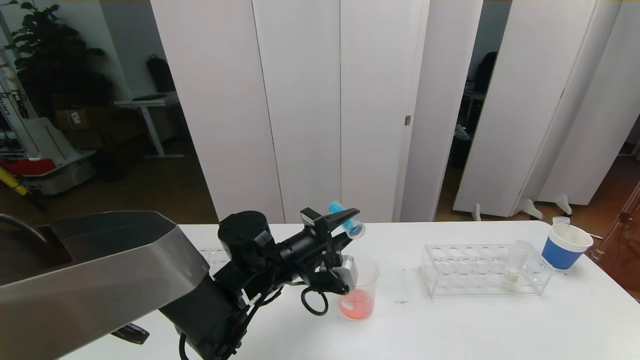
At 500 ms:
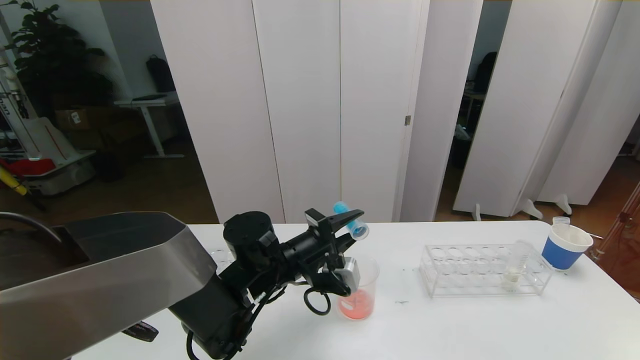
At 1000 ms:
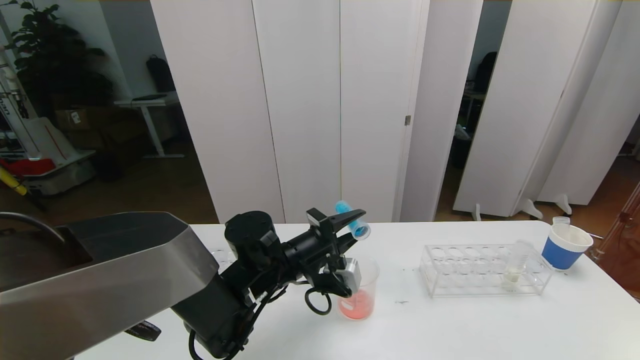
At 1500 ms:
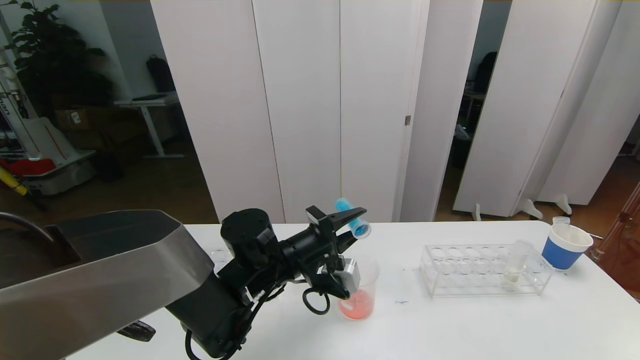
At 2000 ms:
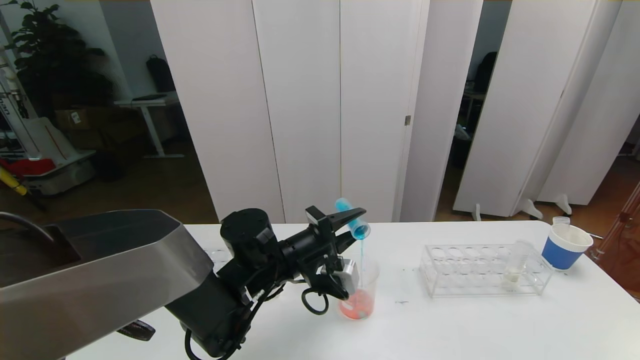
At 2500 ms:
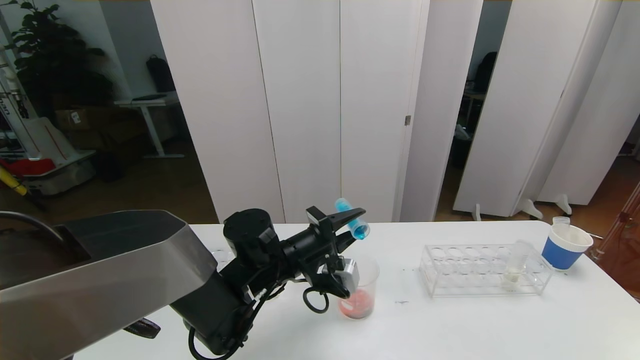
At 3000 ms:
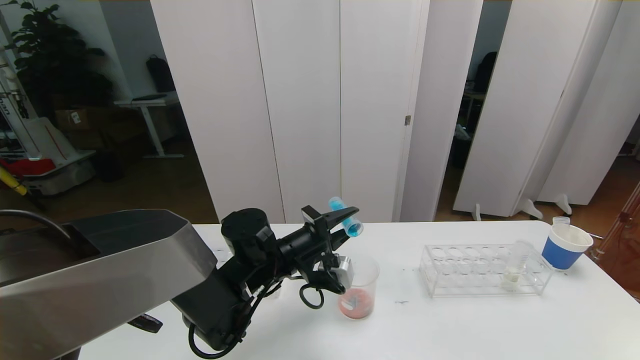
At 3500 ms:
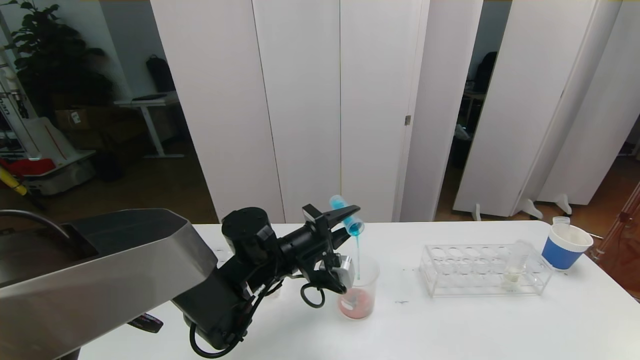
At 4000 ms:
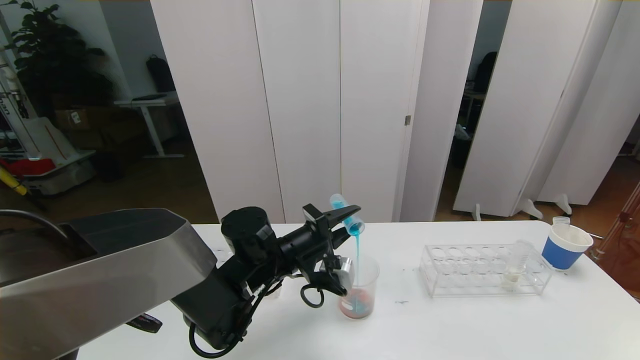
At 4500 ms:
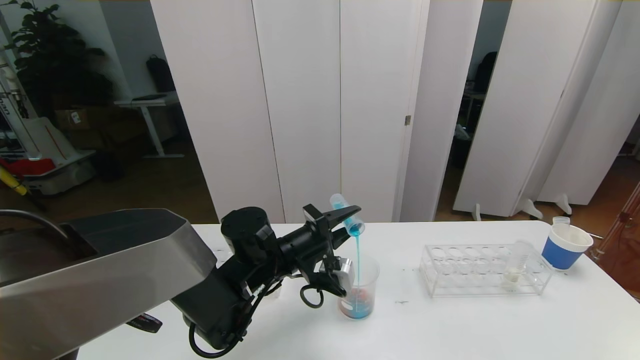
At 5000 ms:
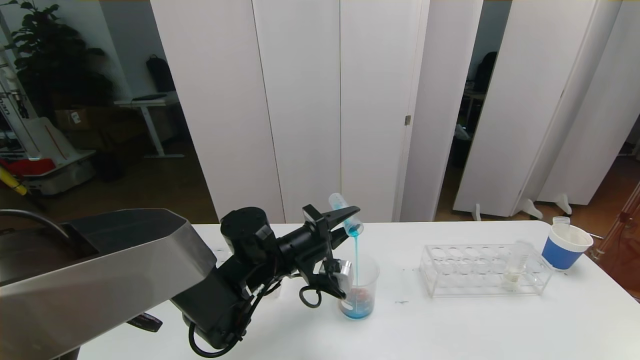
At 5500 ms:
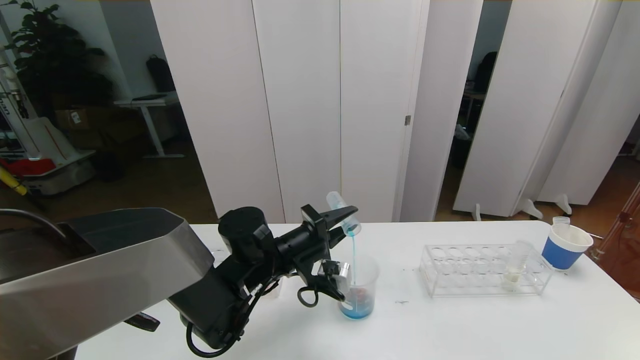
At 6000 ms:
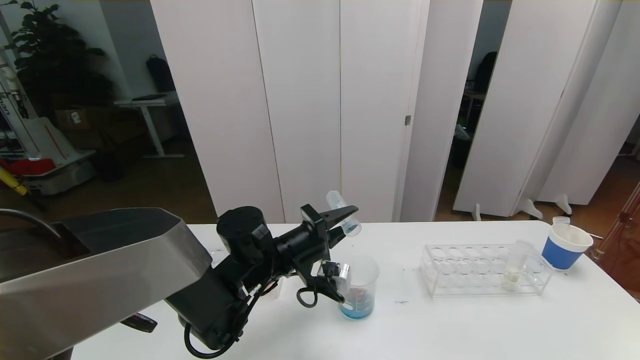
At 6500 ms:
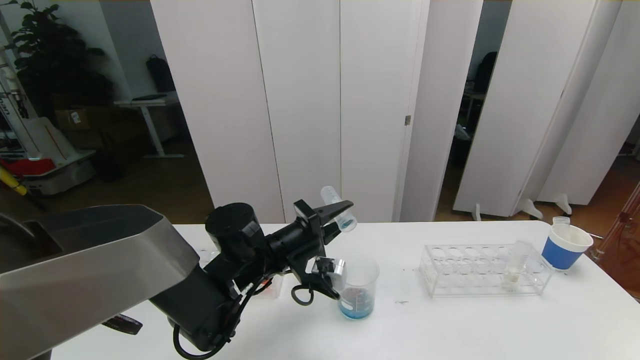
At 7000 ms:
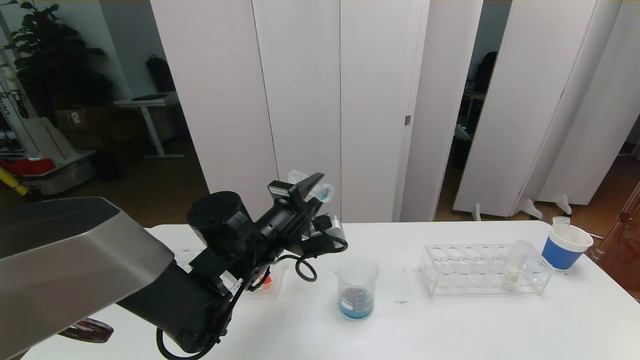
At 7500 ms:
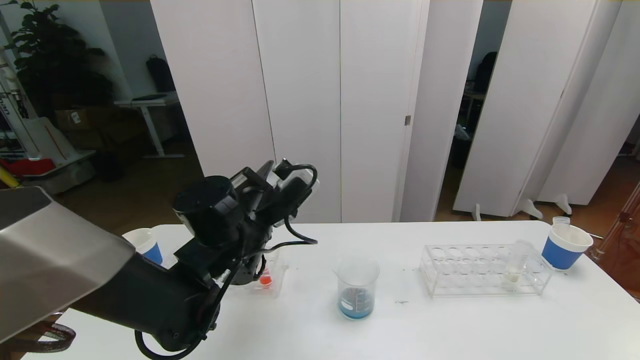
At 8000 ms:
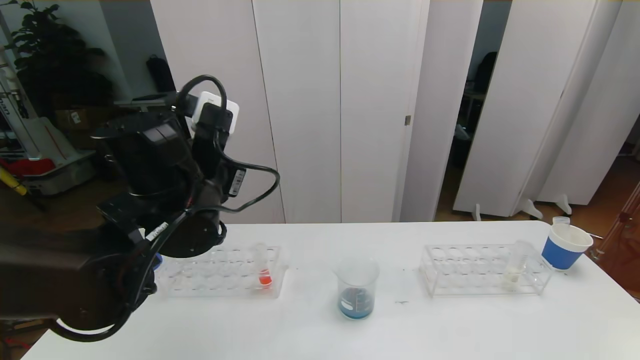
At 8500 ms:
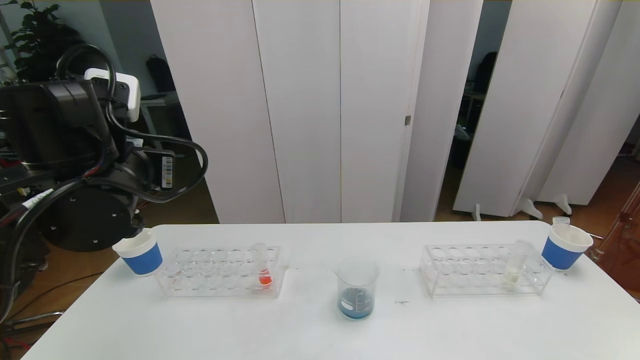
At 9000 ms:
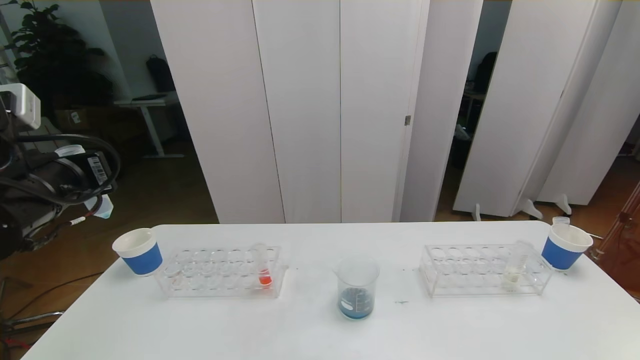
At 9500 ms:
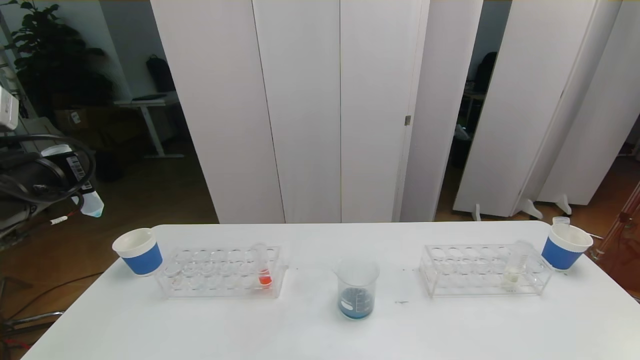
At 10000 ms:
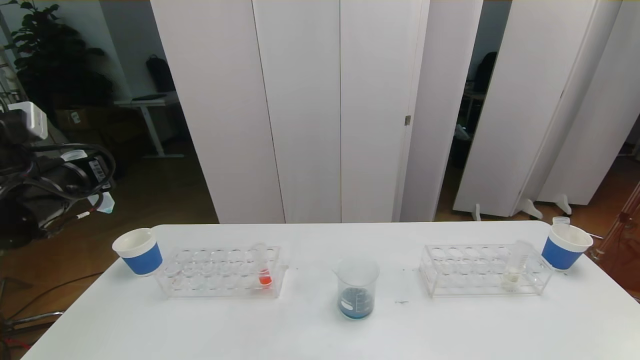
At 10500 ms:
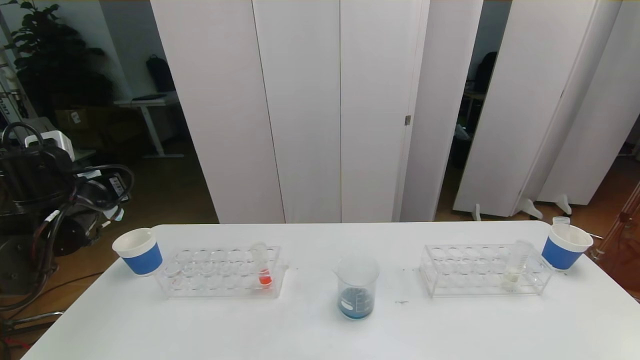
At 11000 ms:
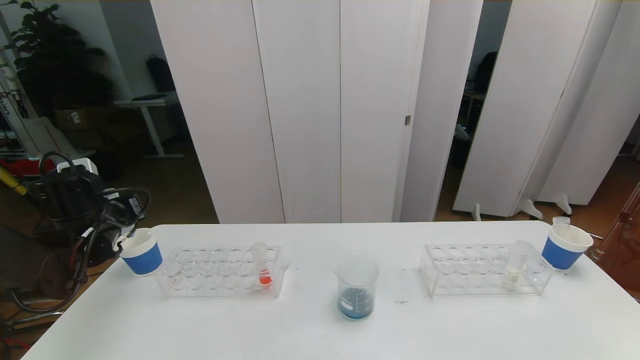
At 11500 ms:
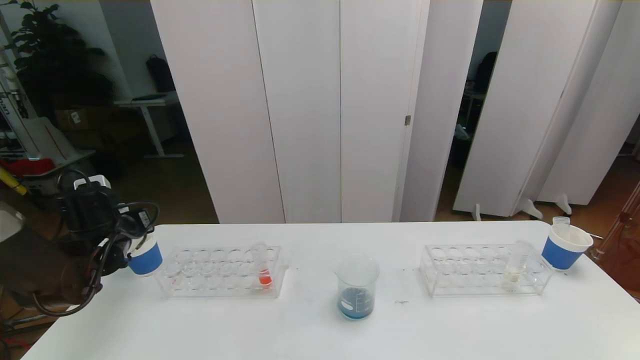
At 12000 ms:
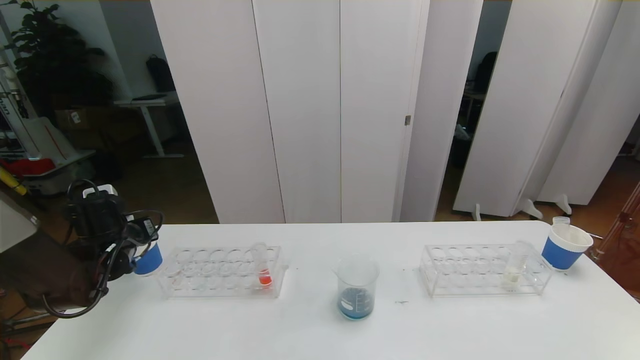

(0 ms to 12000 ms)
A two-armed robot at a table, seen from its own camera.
Task of the whole recording: pick up the test tube with red pigment the test tube with blue pigment and the test tube with white pigment by grippers and pour them into the beaker.
0 ms - 6000 ms: There are only small adjustments of the grippers.
6000 ms - 8000 ms: The left gripper shifts approximately 15 cm upward and to the left.
8000 ms - 10000 ms: The left gripper is displaced to the left by about 20 cm.
10000 ms - 12000 ms: The left gripper is displaced downward and forward by some 15 cm.

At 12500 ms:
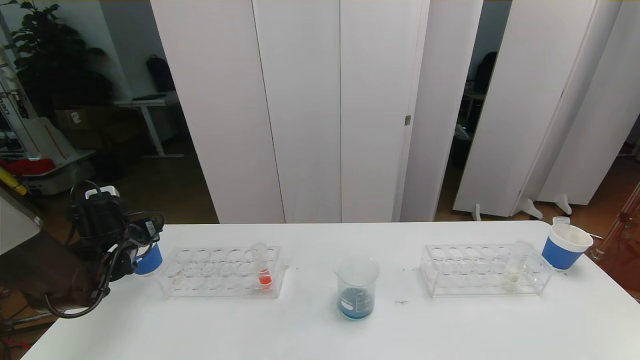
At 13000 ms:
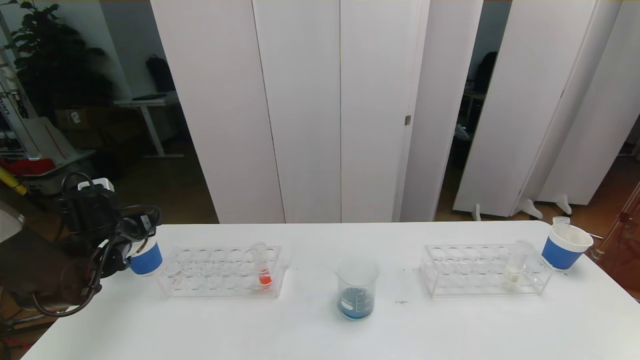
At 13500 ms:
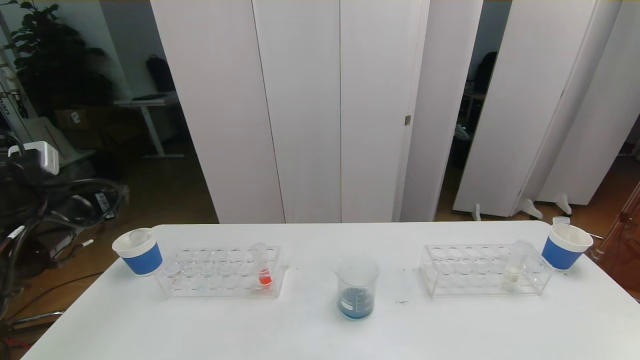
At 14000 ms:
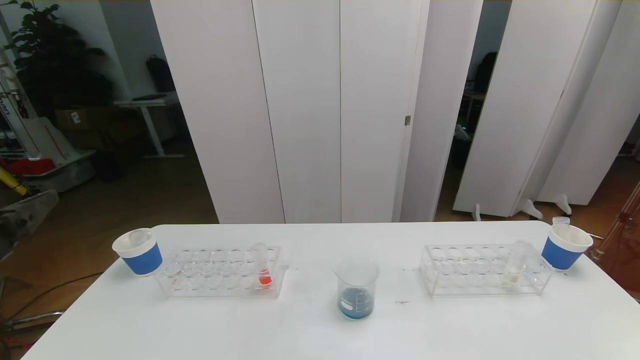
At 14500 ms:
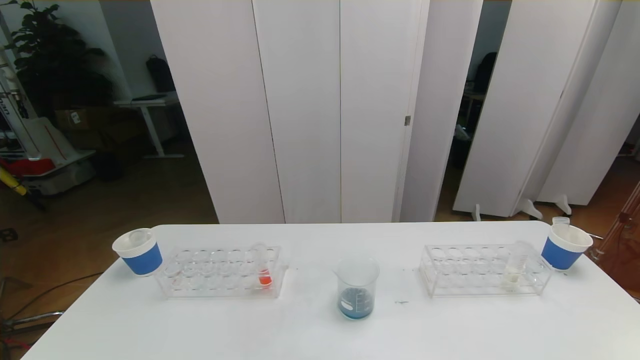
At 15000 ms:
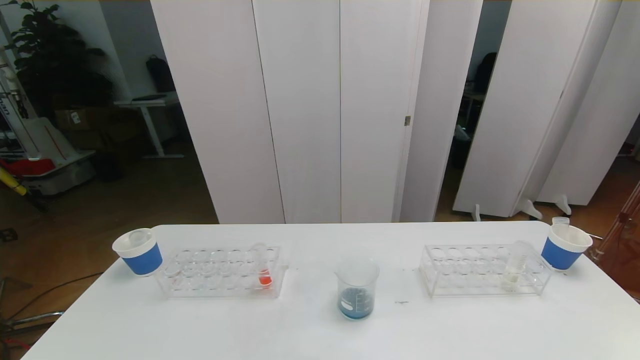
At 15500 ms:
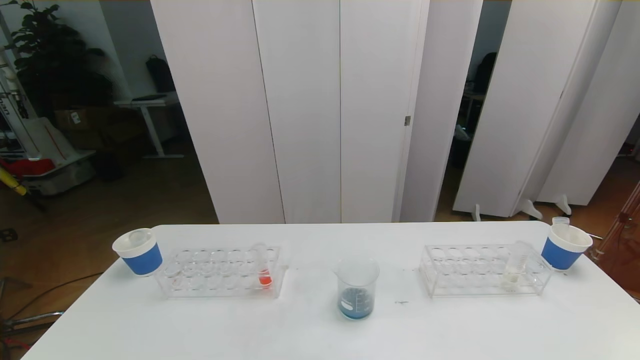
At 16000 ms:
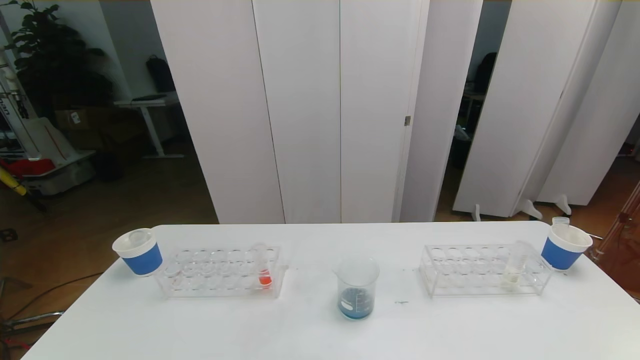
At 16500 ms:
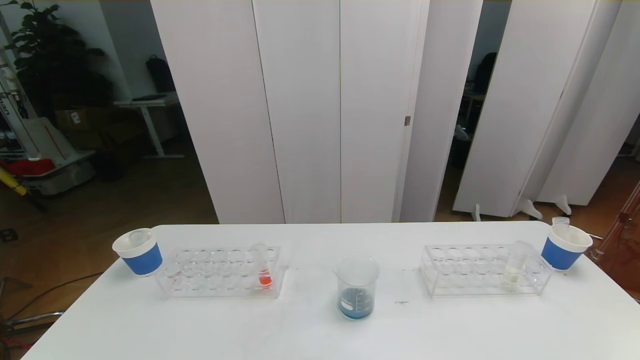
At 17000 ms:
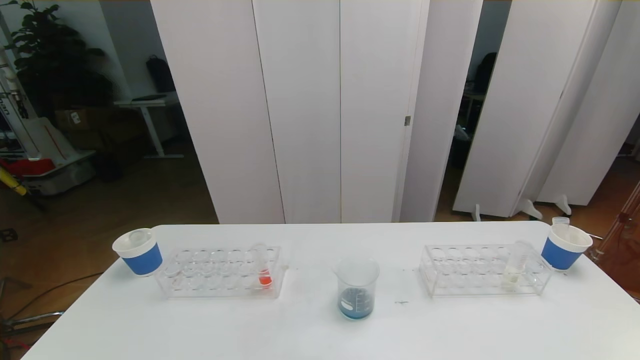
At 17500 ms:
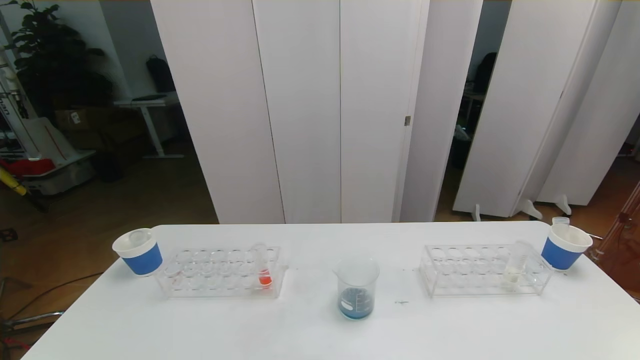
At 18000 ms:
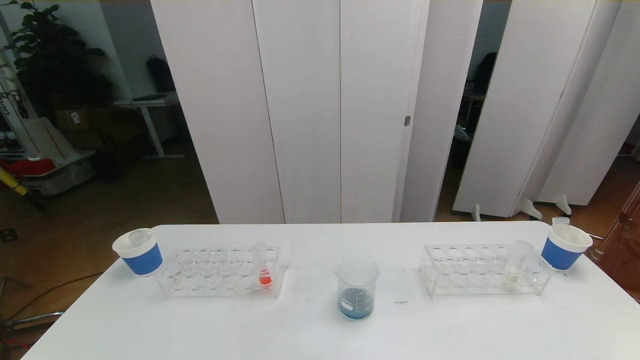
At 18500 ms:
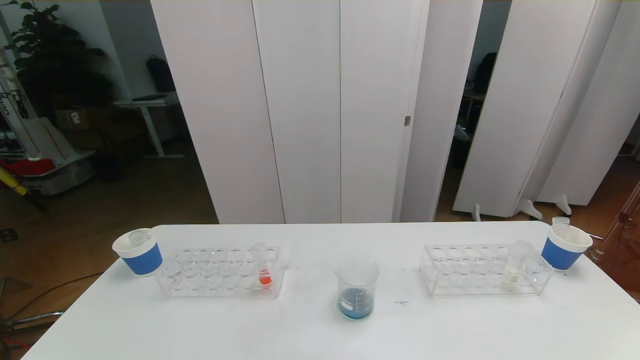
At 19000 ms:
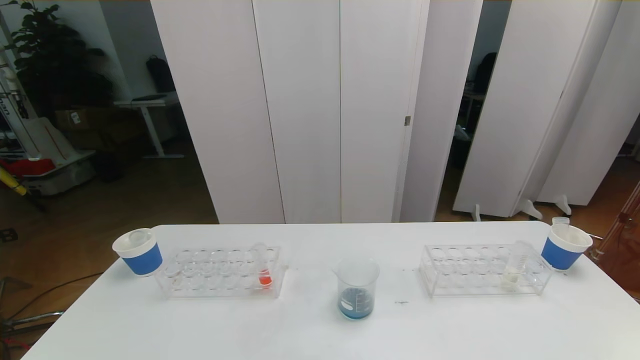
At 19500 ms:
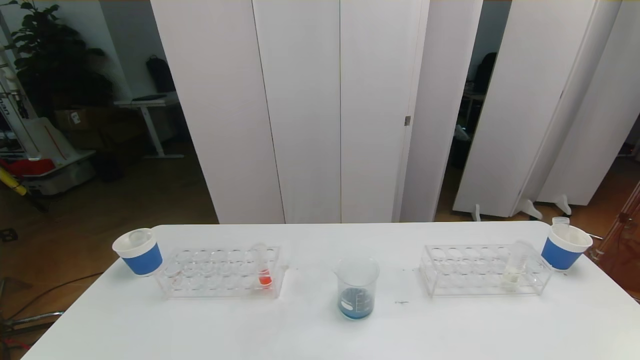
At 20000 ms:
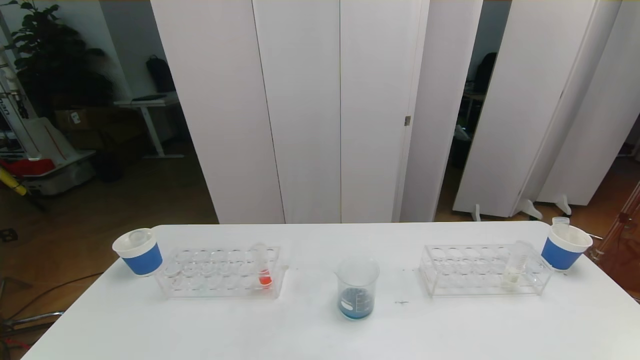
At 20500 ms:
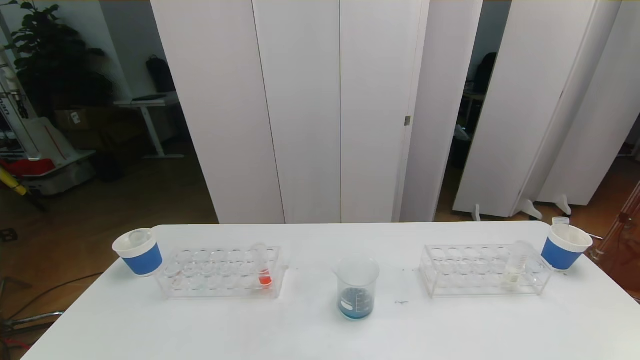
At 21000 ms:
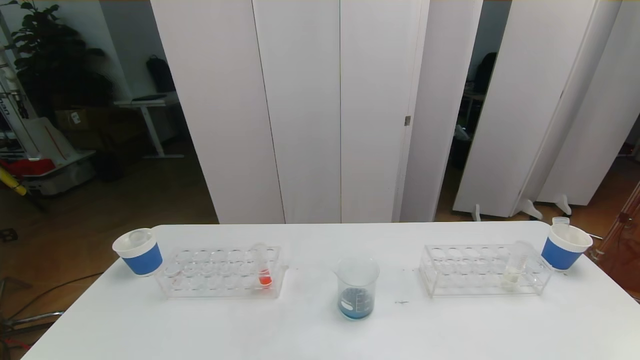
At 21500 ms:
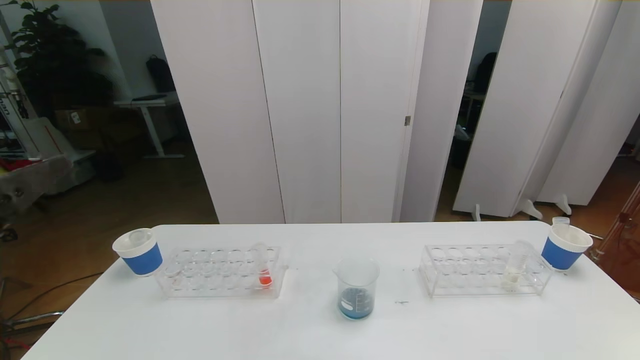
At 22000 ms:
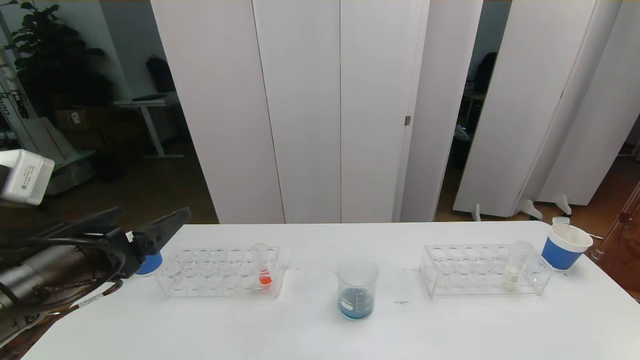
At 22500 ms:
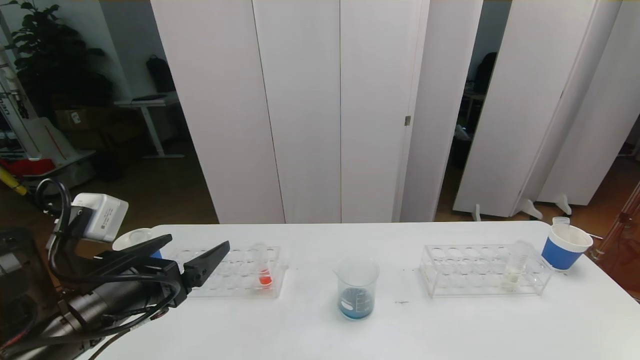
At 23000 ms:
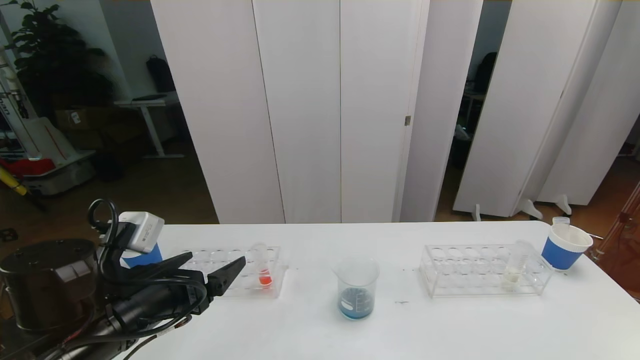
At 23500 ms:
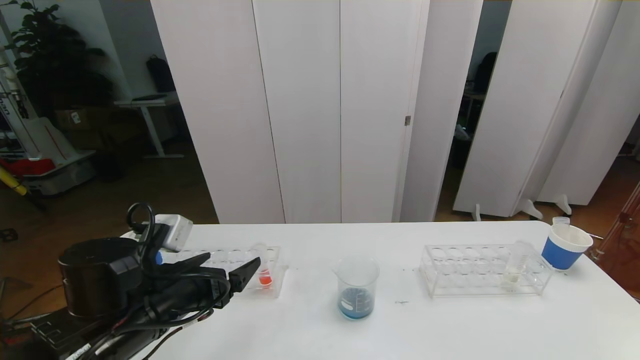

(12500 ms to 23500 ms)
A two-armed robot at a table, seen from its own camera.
Task of the whole recording: pick up the test tube with red pigment the test tube with blue pigment and the test tube with white pigment by grippers and pour them into the beaker.
Step, 12500 ms - 17000 ms: Pour the blue reagent into the graduated cylinder and place the test tube into the paper cup.
12500 ms - 14500 ms: The left gripper moves backward and upward, about 40 cm.
21500 ms - 23500 ms: The left gripper moves downward, forward and to the right, about 20 cm.
